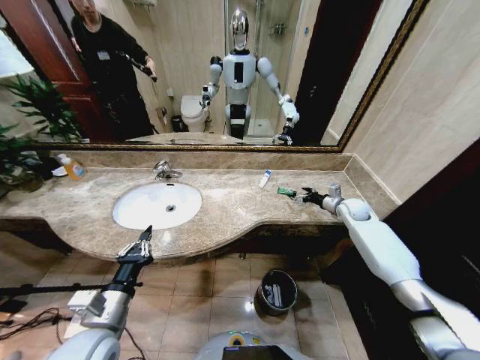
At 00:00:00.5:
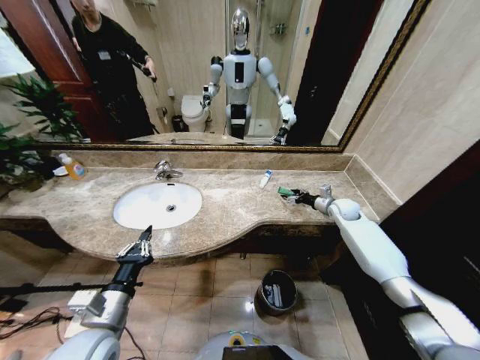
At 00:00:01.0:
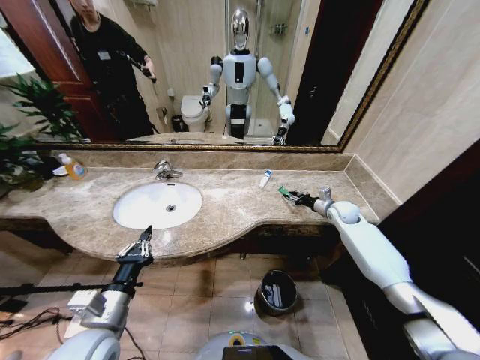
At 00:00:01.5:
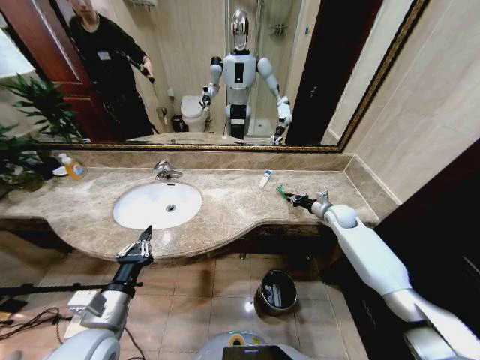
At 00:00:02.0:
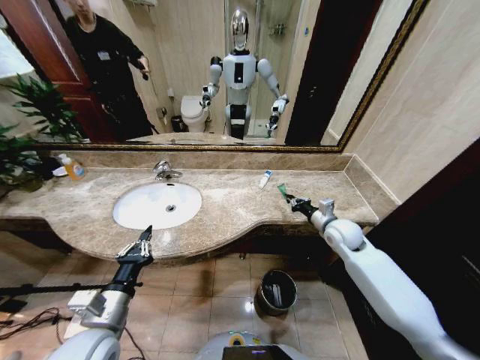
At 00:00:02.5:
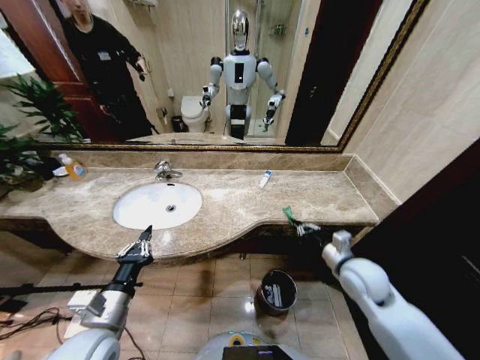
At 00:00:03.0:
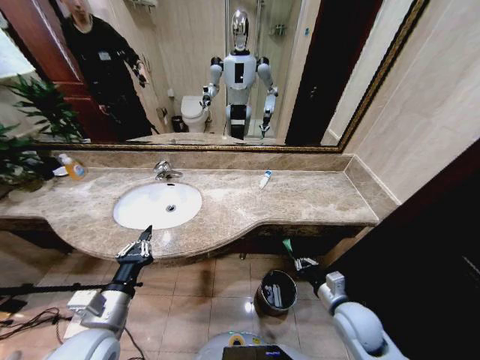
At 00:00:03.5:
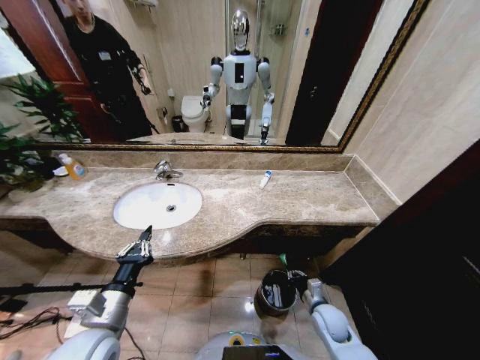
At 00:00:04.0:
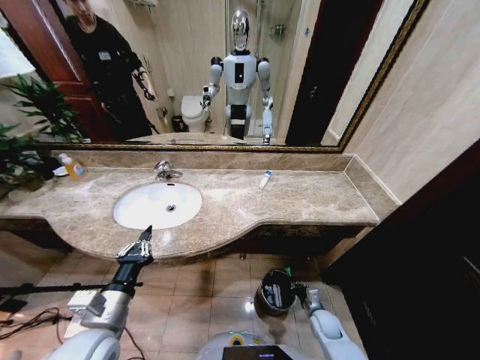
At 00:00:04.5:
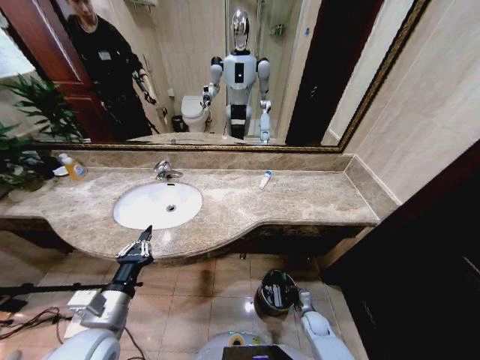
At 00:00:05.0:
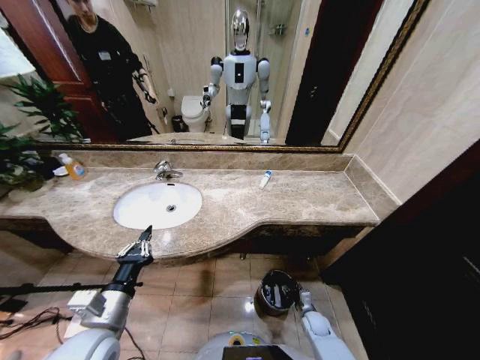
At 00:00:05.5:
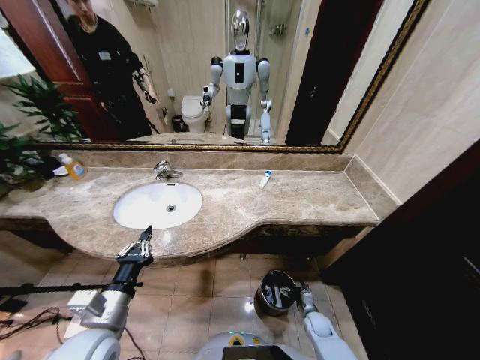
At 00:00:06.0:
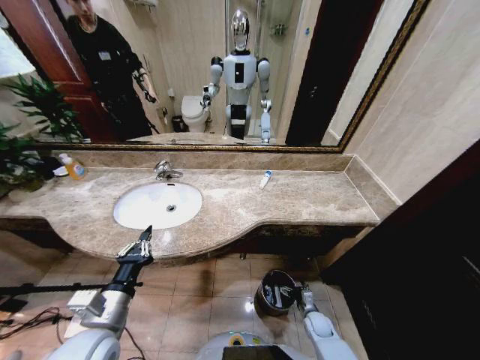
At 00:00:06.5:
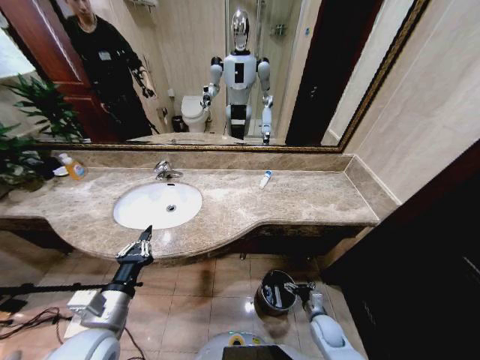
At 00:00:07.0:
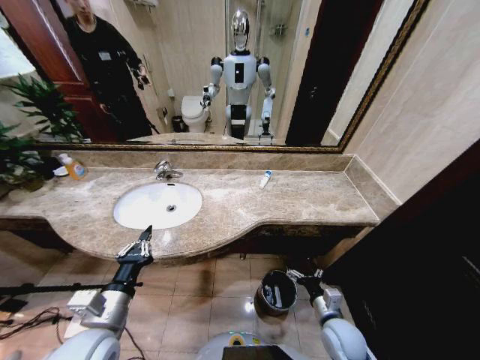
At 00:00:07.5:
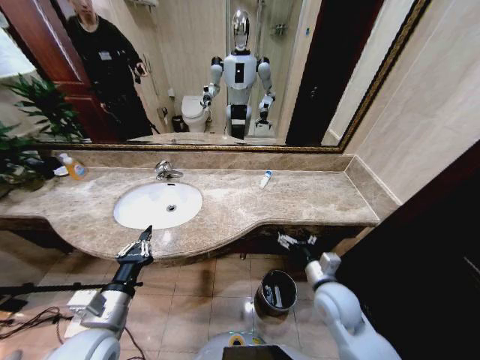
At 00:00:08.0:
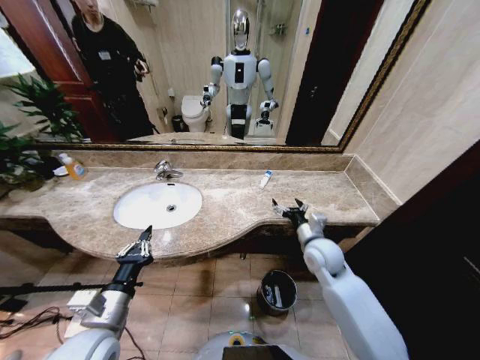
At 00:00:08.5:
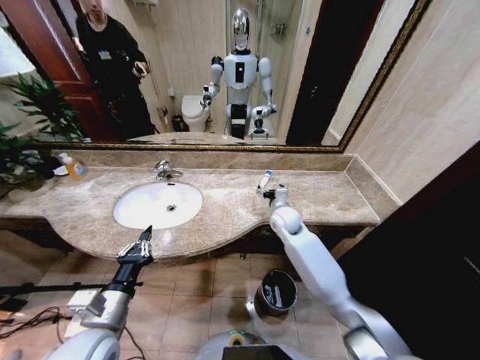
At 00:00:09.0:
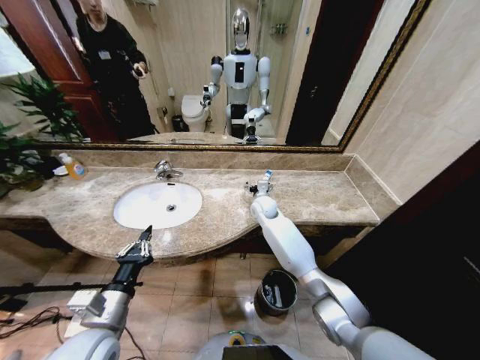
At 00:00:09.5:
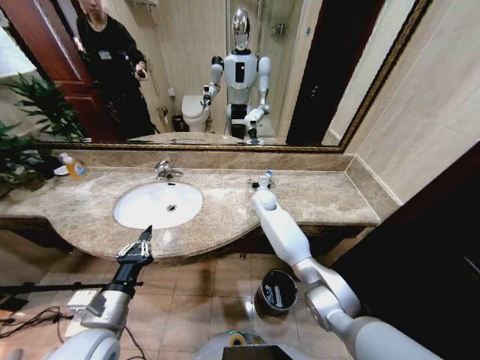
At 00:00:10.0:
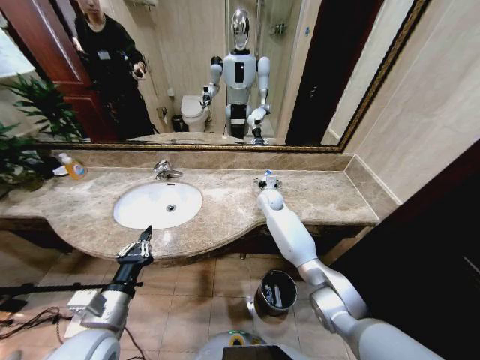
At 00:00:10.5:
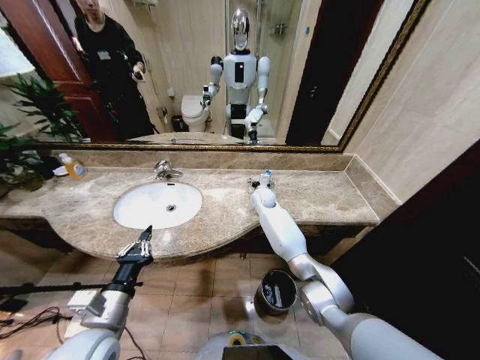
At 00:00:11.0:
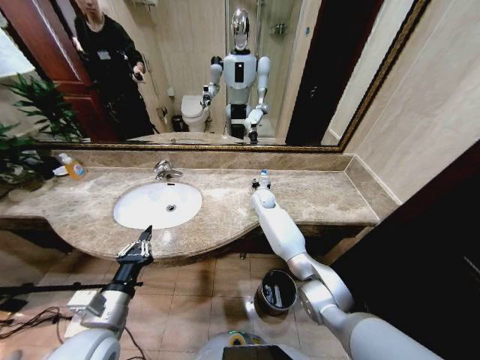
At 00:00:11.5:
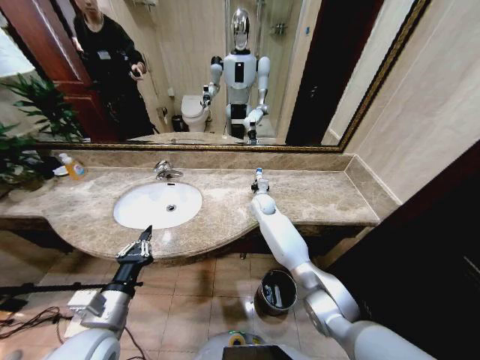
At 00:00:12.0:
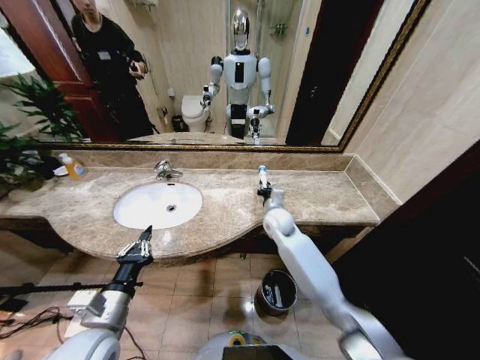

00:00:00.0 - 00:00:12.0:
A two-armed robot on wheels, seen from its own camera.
Task of the whole recording: Pick up the trash from the sink and place it in the trash bin.
00:00:00.0 - 00:00:02.0: The right gripper heads to the left and backward, covering about 15 cm, and closes up.
00:00:02.0 - 00:00:04.0: The right gripper moves downward and backward, about 35 cm.
00:00:04.0 - 00:00:06.0: The right gripper opens up.
00:00:06.0 - 00:00:08.0: The right gripper travels upward by some 35 cm.
00:00:08.0 - 00:00:10.0: The right gripper shifts roughly 25 cm forward and to the left.
00:00:10.0 - 00:00:12.0: The right gripper shifts about 10 cm backward, and closes.

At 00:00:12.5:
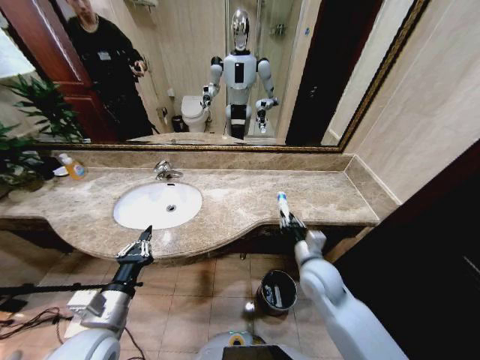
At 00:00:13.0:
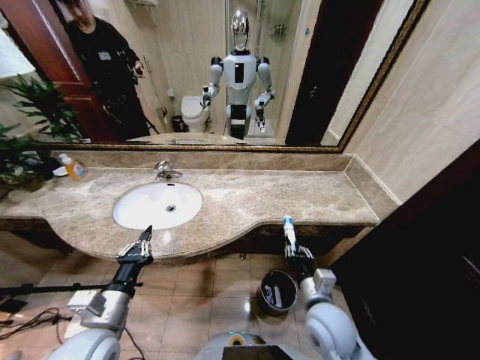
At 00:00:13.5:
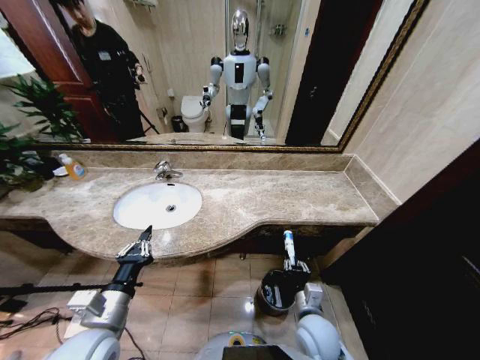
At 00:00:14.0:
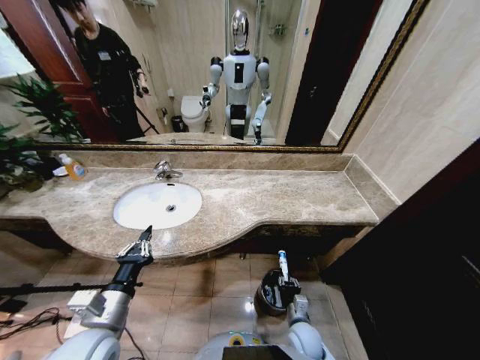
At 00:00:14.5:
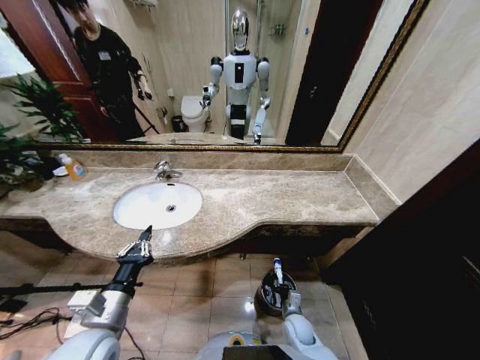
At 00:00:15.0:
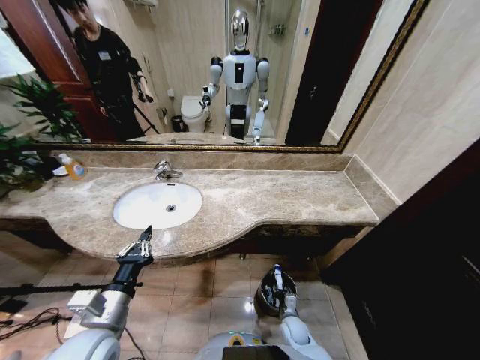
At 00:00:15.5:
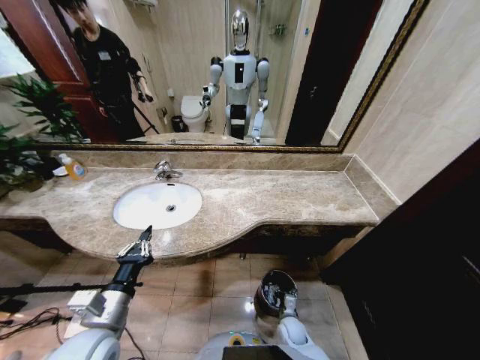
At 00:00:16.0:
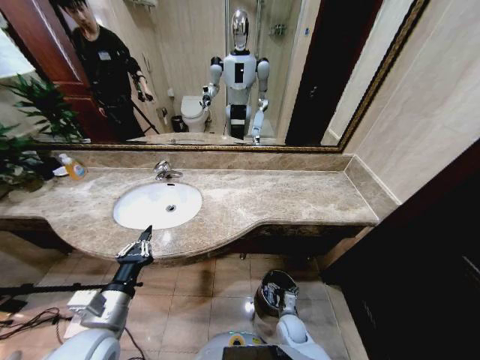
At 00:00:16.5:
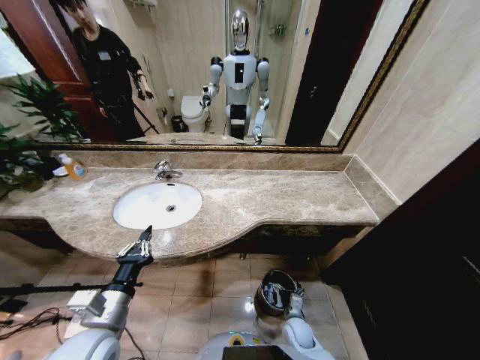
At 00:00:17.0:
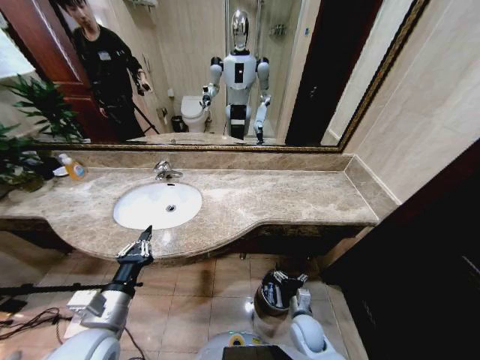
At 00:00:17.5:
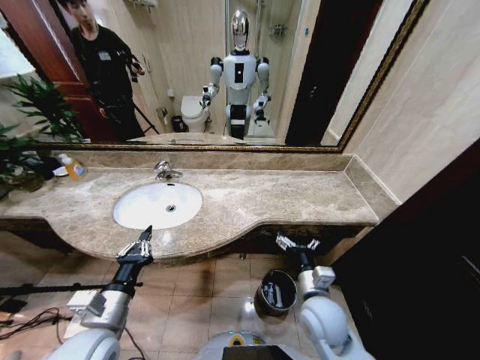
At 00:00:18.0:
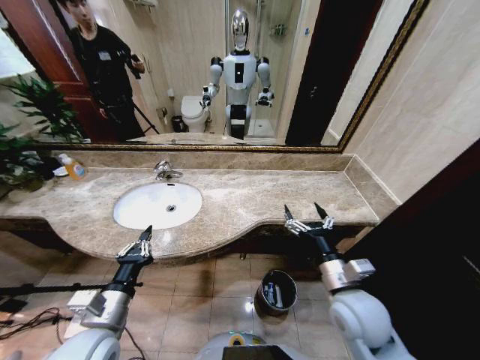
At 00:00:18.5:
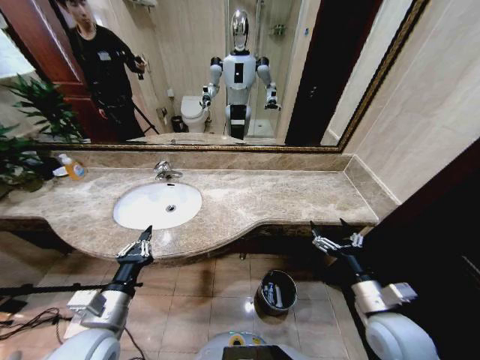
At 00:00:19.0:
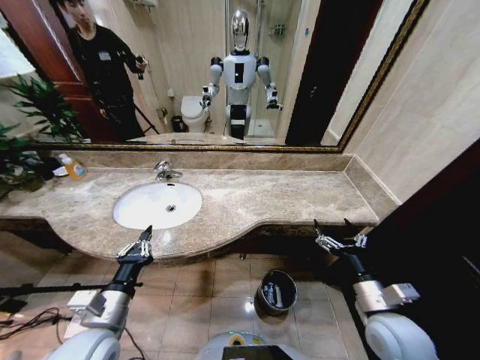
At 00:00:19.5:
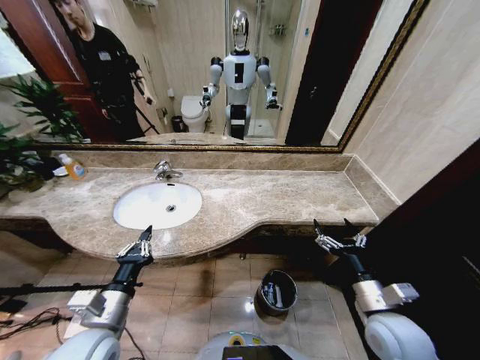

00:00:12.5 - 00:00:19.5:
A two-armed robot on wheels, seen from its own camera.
Task of the whole recording: Pick up the trash from the sink and place it in the trash bin.
00:00:12.5 - 00:00:14.5: The right gripper heads downward, covering approximately 30 cm.
00:00:14.5 - 00:00:16.0: The right gripper opens.
00:00:16.0 - 00:00:17.5: The right gripper heads upward, covering about 25 cm.
00:00:17.5 - 00:00:19.5: The right gripper is displaced to the right and upward by approximately 15 cm.
